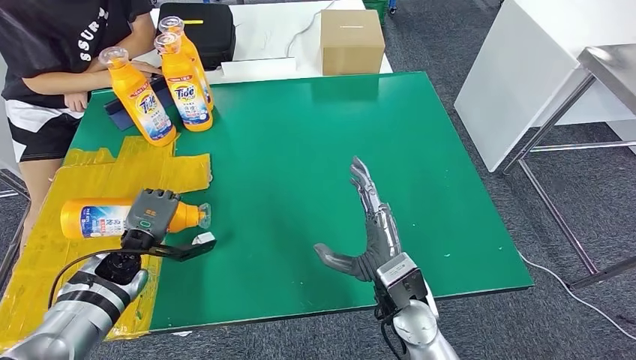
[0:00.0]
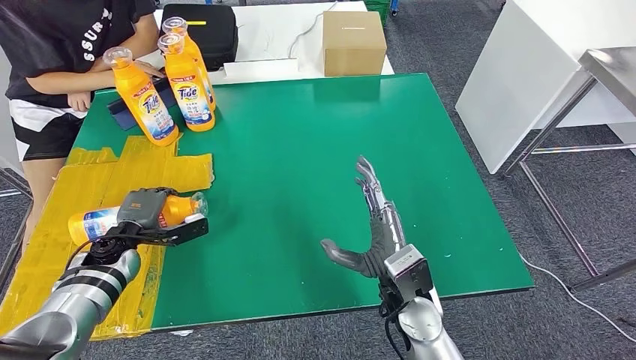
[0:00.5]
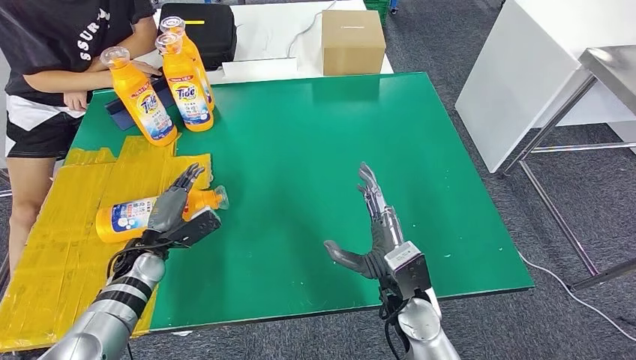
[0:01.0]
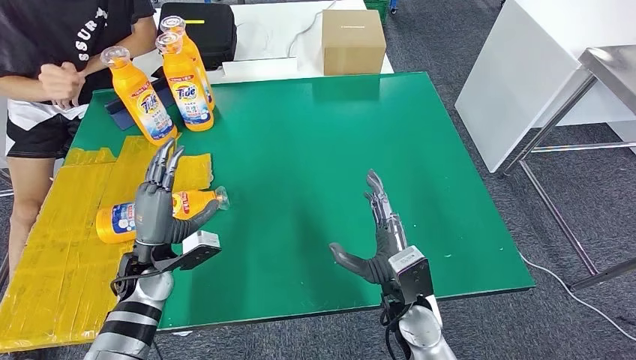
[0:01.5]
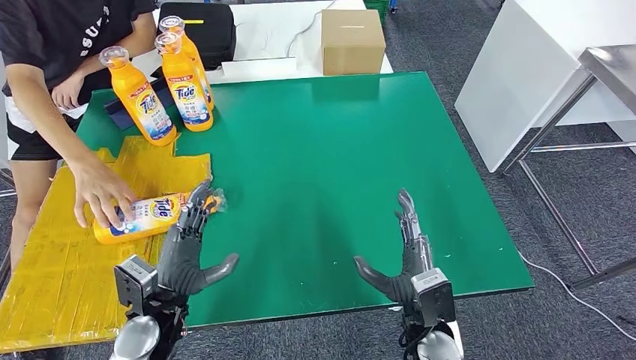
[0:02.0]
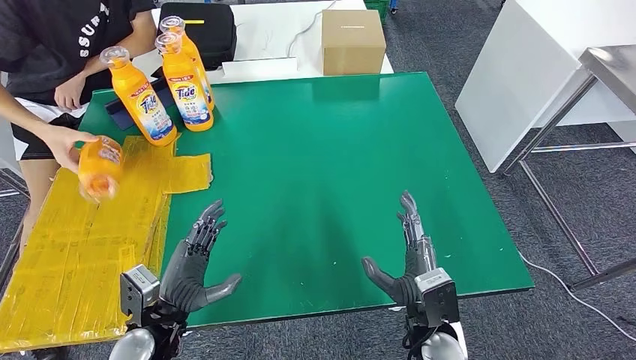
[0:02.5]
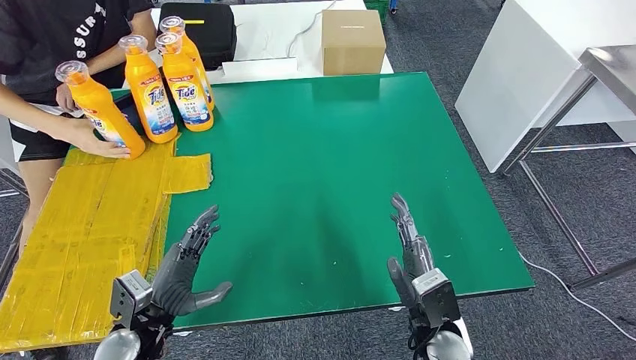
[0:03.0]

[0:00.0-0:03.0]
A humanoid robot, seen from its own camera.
Step, 0:00.0 to 0:03.0: Flip the bottle to face forward.
0:00.0 to 0:01.5: The left hand shifts about 5 cm to the right.
0:01.5 to 0:03.0: The left hand goes roughly 10 cm backward. Meanwhile the right hand ends up some 5 cm from where it was.
